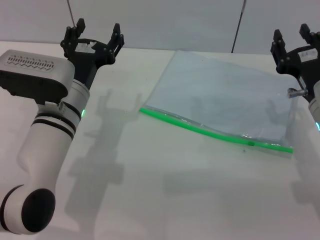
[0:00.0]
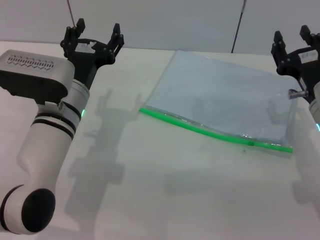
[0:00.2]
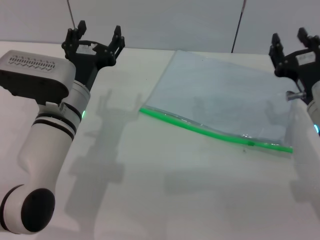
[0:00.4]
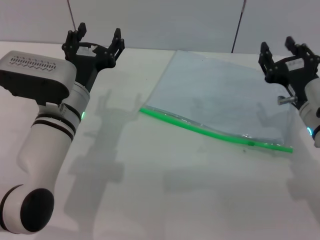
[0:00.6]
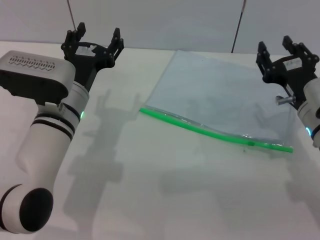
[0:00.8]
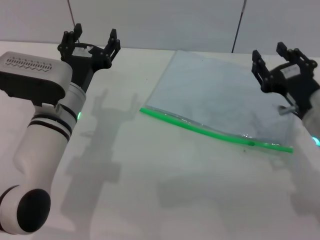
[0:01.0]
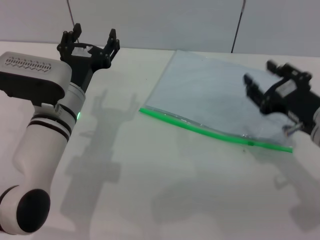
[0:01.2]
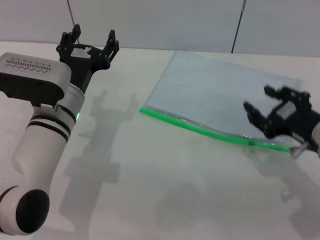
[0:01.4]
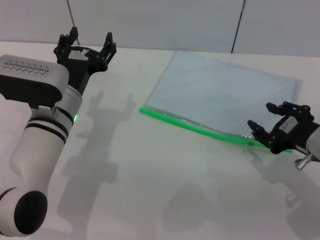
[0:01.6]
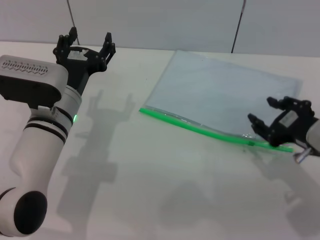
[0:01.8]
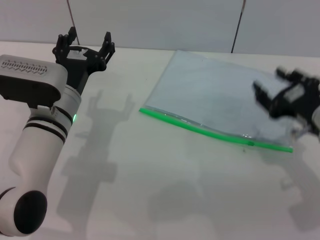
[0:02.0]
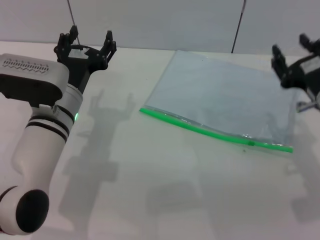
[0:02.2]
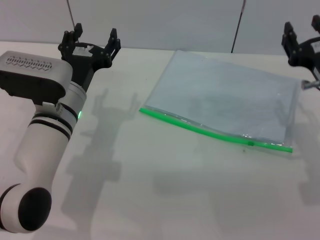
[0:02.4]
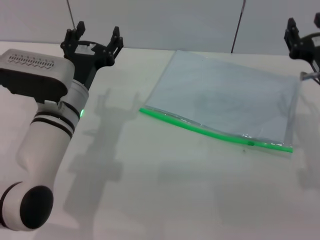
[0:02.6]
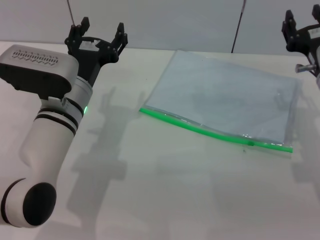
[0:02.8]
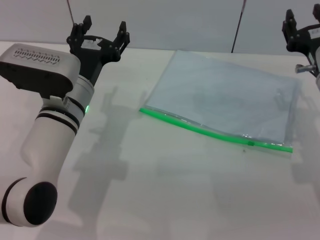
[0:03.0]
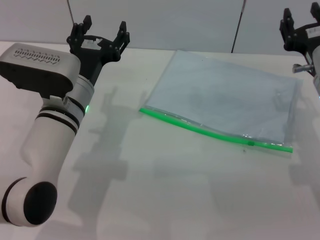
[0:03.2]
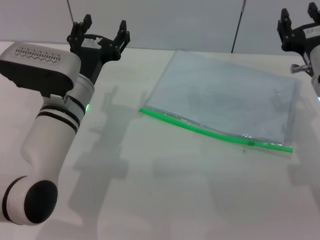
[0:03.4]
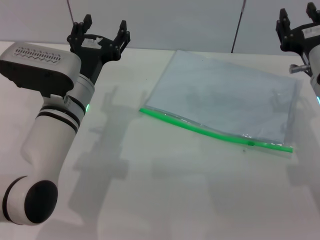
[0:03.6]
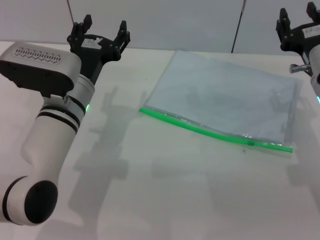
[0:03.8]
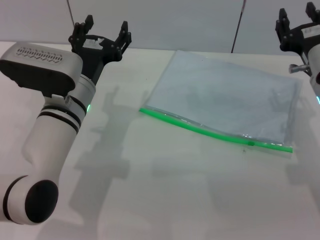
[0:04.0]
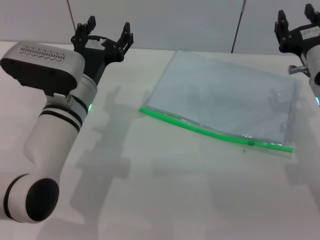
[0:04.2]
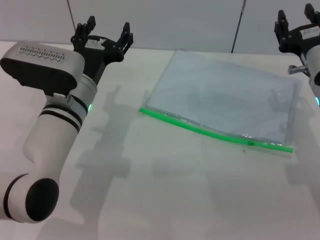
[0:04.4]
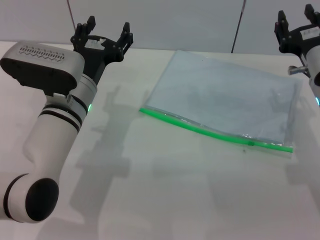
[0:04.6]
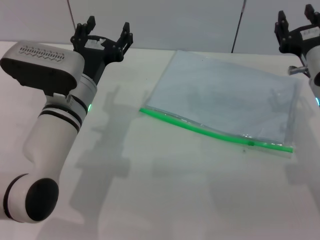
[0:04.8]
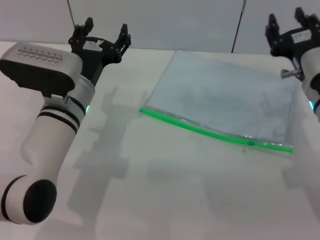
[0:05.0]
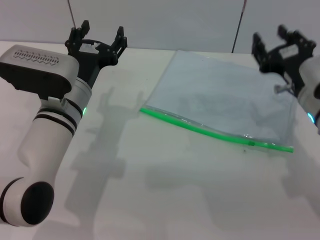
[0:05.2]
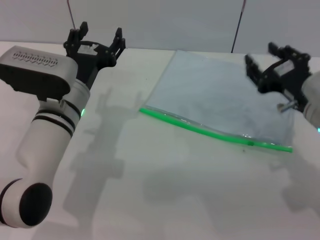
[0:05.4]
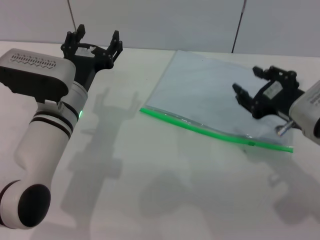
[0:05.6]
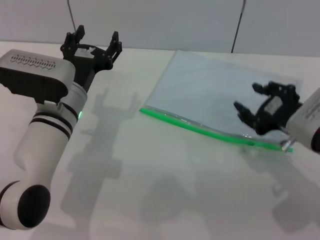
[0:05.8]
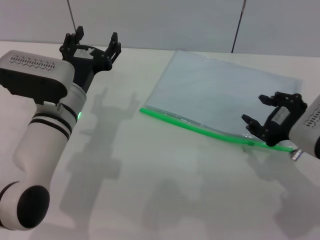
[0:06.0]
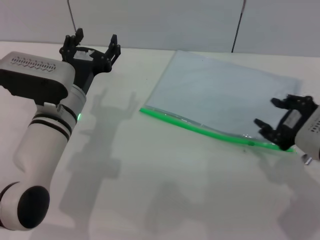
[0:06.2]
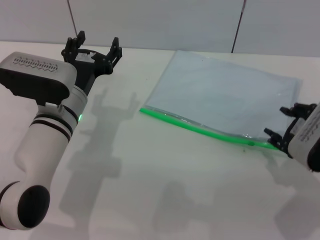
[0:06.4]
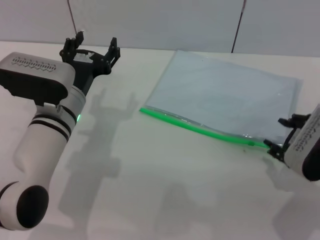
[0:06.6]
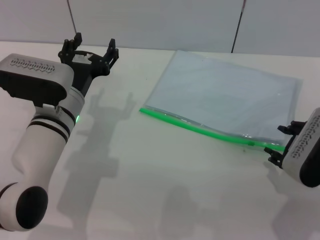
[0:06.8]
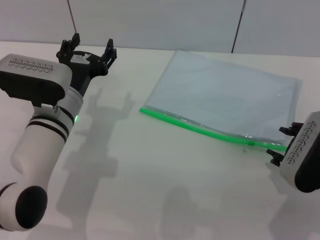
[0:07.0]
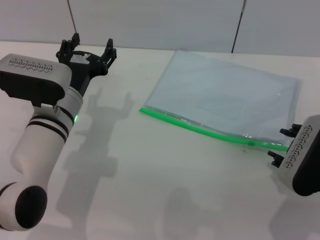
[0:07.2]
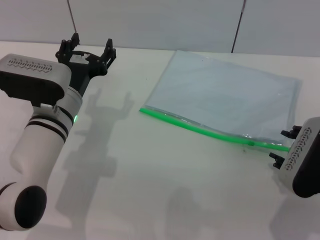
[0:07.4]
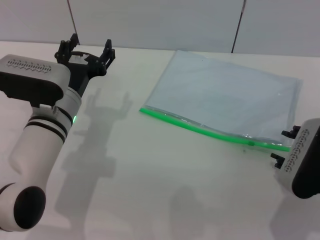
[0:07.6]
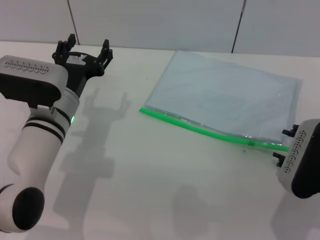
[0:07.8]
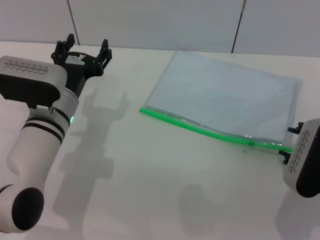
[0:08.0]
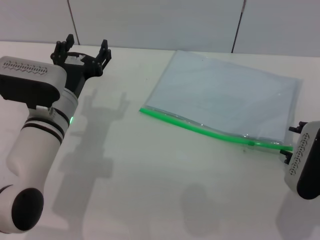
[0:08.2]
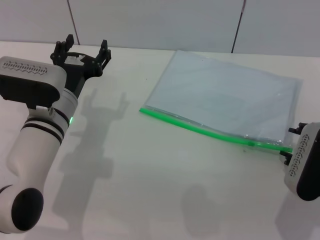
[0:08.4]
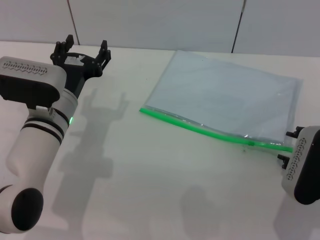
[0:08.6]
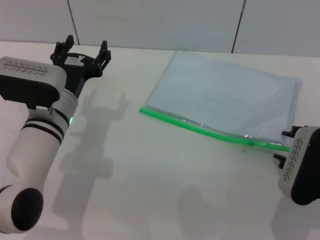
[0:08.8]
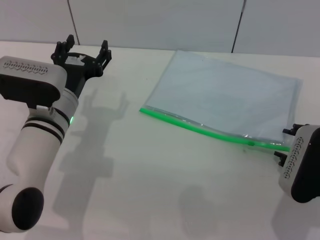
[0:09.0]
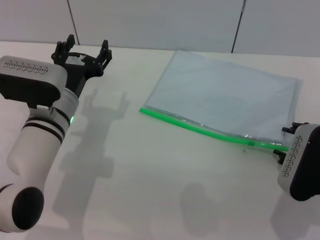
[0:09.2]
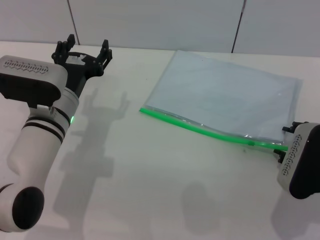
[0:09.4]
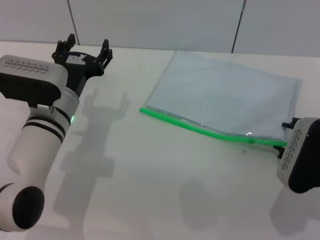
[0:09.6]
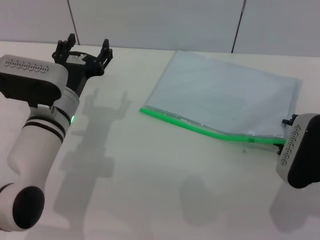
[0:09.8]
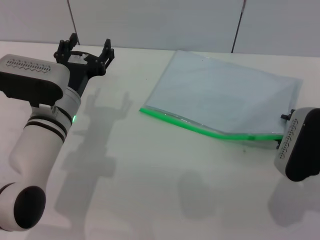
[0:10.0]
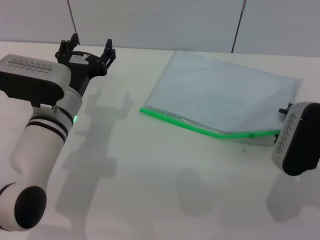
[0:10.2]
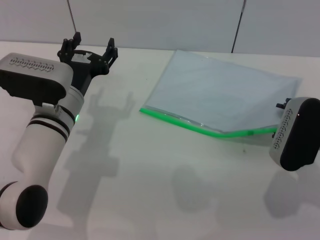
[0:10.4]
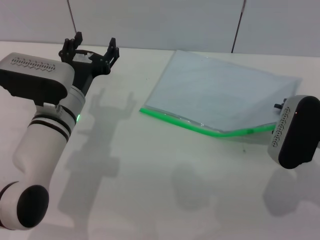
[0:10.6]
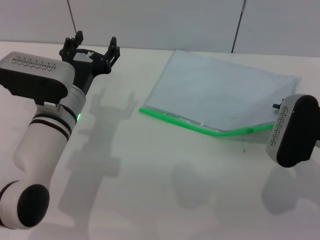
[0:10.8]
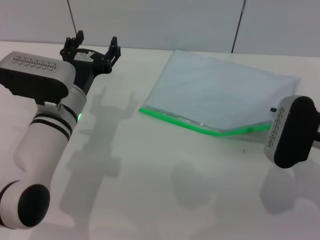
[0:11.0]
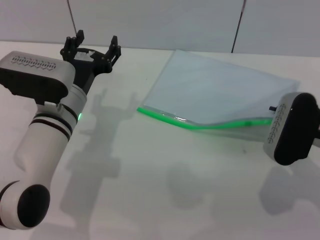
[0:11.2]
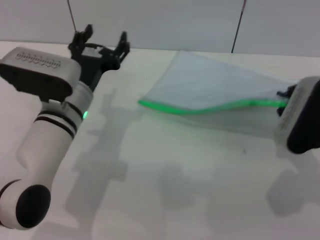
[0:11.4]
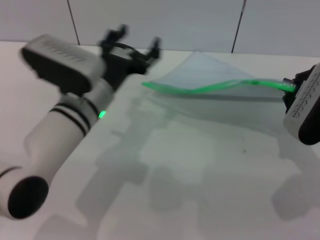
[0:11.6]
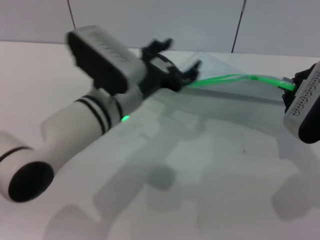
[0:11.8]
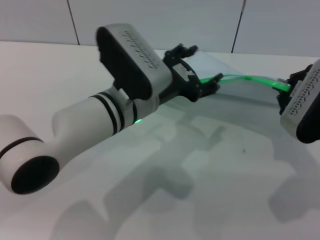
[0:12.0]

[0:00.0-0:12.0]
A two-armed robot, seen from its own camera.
Step, 0:00.0 to 0:11.4: Pick up the transparent plastic bag with the right gripper.
0:00.0 to 0:01.6: The right gripper moves backward, some 5 cm.
0:01.6 to 0:03.0: The right gripper heads forward, covering approximately 10 cm.
0:03.0 to 0:04.4: The two grippers keep their place.
0:04.4 to 0:06.0: The right gripper goes about 10 cm backward.
0:07.6 to 0:10.4: The grippers move only a little.
0:10.4 to 0:12.0: The right gripper travels upward by approximately 5 cm, and closes. Meanwhile the left gripper goes about 10 cm to the right and upward.

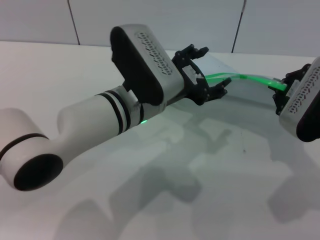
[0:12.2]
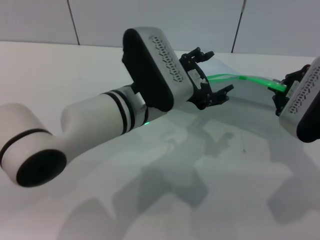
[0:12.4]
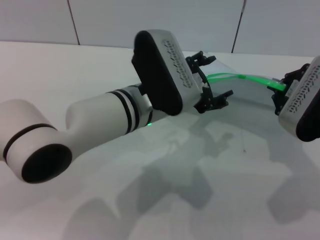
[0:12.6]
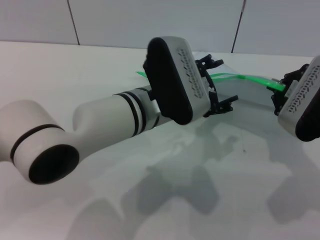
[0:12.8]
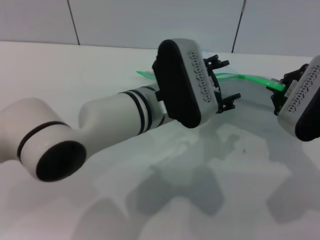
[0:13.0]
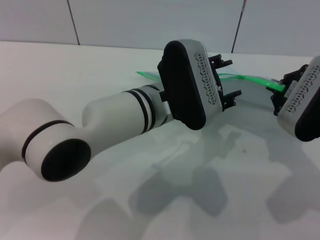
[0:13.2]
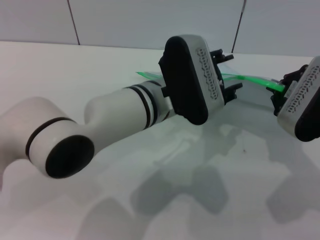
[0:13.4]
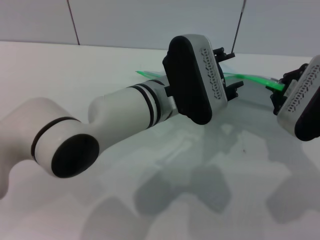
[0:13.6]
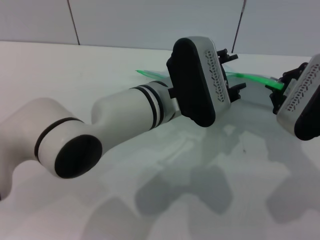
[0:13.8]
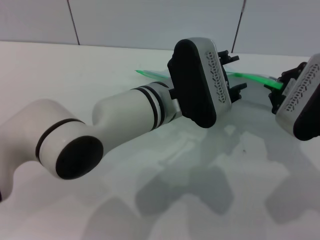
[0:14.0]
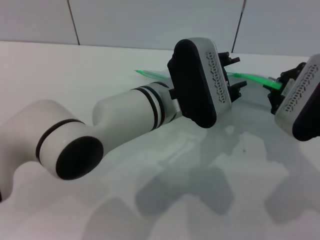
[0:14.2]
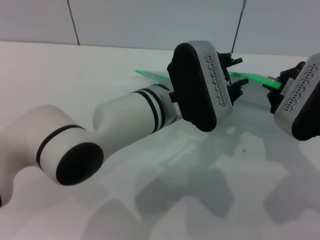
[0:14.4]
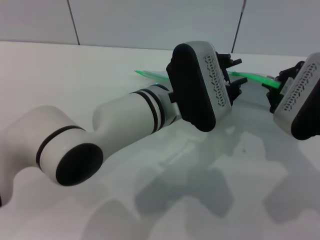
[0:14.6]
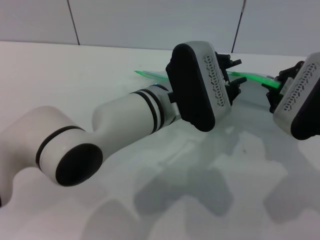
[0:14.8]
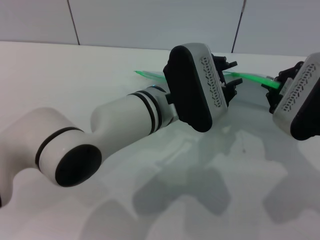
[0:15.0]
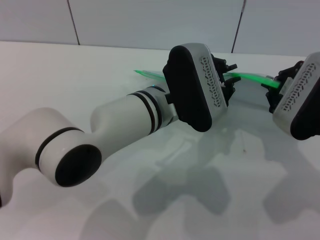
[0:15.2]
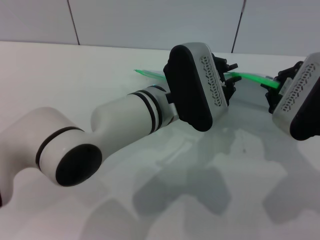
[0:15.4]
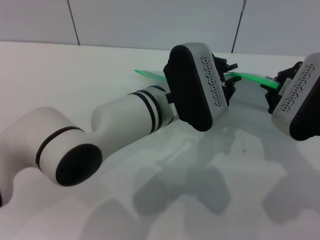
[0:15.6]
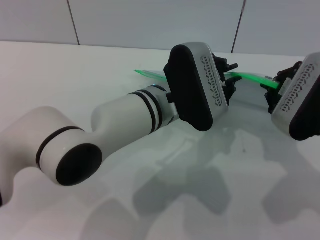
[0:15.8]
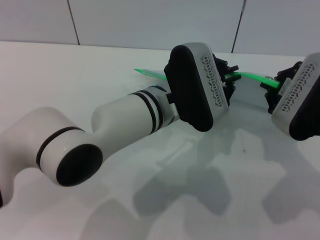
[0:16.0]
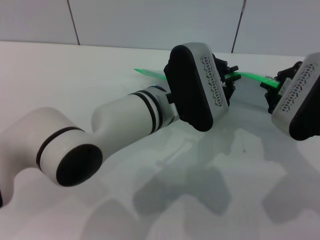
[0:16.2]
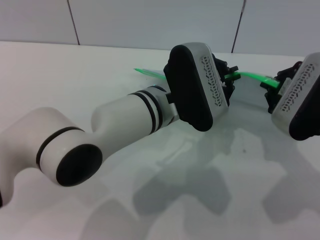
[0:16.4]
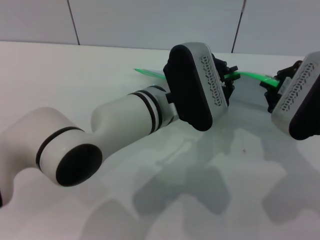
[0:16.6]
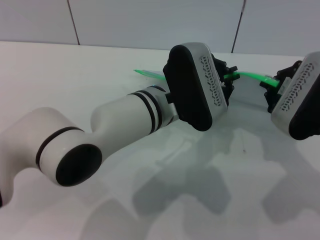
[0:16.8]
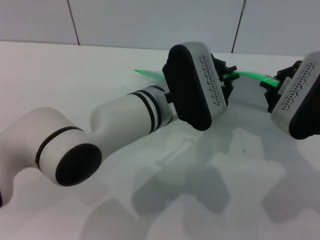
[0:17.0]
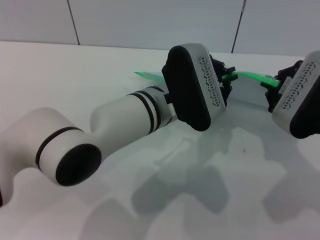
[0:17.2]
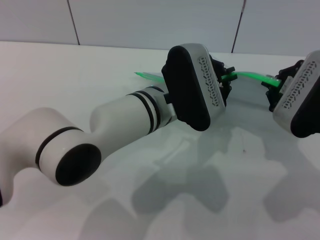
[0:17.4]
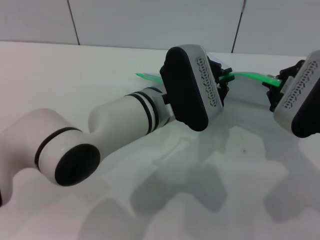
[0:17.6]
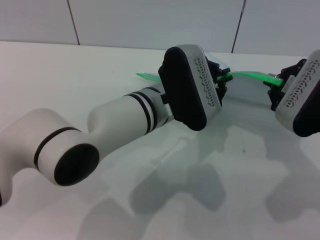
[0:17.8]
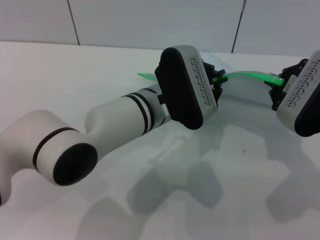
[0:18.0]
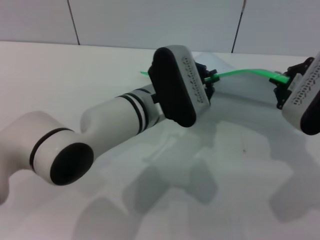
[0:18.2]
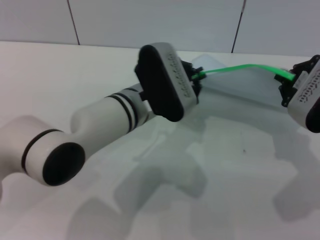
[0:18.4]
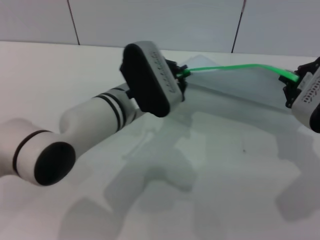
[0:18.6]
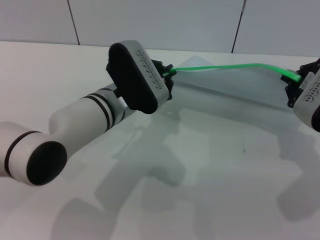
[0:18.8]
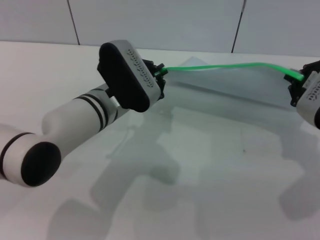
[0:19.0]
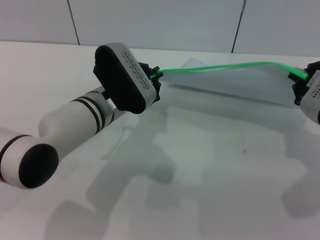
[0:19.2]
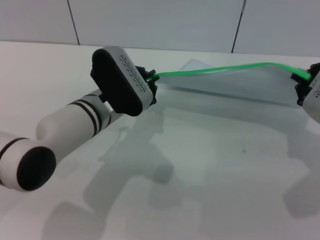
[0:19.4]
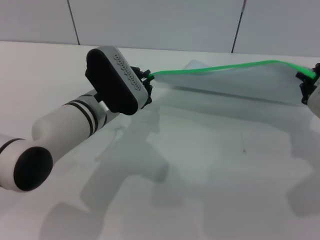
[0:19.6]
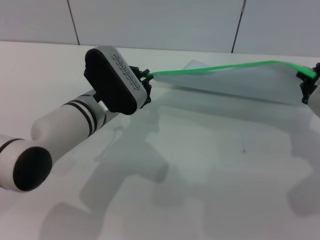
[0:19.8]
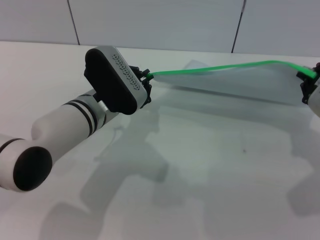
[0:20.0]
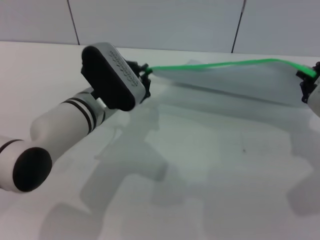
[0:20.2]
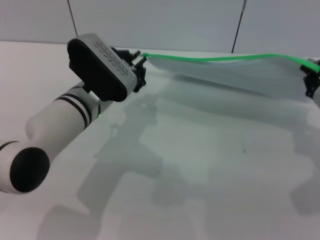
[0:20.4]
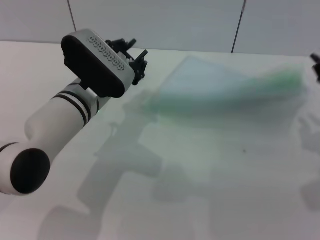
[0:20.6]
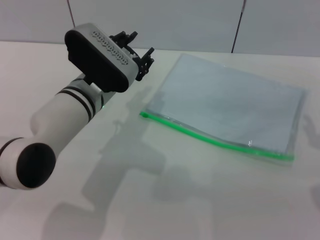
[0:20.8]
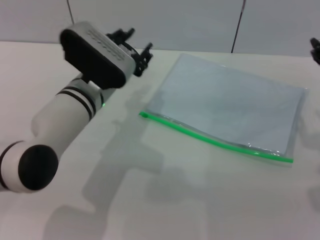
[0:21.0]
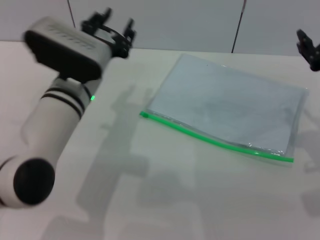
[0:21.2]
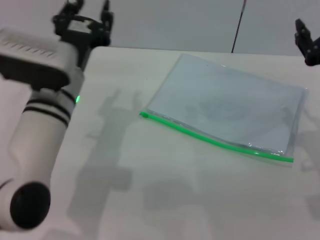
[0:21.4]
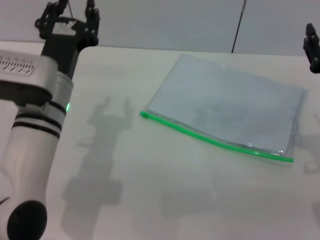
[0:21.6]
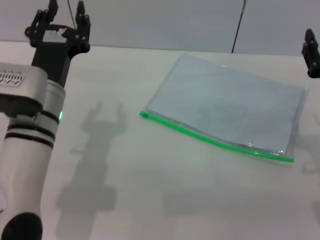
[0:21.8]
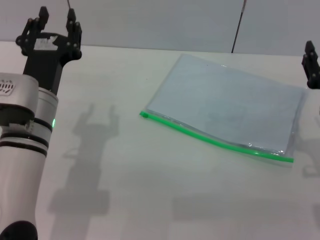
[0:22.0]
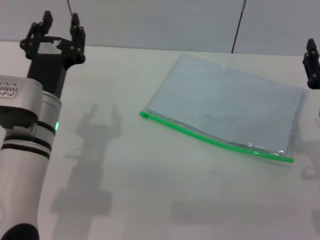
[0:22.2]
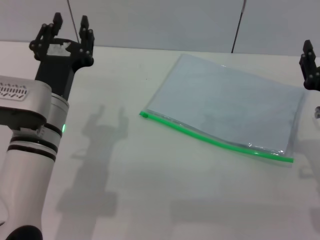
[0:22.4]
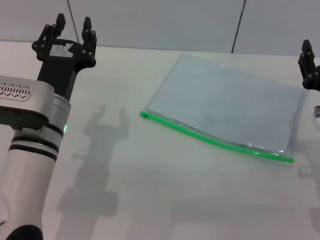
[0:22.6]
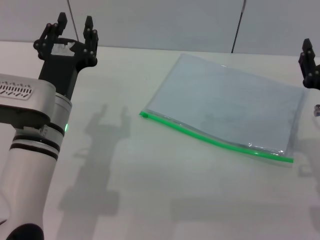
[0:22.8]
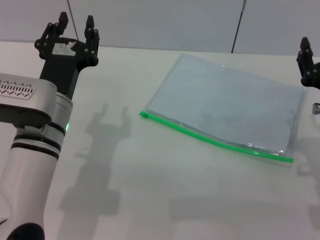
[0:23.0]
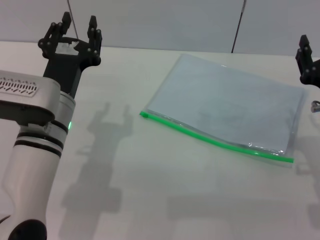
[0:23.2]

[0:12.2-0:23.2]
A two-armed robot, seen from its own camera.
Step, 0:12.2 to 0:20.4: Pulling up the zipper on the transparent plastic bag with the left gripper to close it.
Step, 0:20.6 to 0:21.2: Place the transparent plastic bag.
0:13.8 to 0:15.4: The left gripper closes up.
0:15.4 to 0:17.0: Both grippers stay put.
0:18.4 to 0:20.0: The left gripper shifts some 5 cm to the left.
0:20.0 to 0:21.6: The right gripper opens its fingers, while the left gripper changes place by some 5 cm, and opens.
0:21.6 to 0:23.2: The grippers stay close to where they were, moving slightly.
